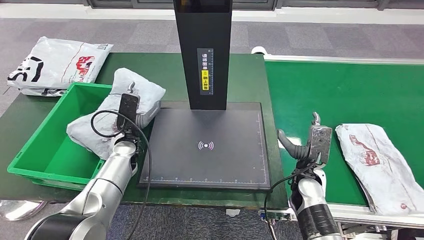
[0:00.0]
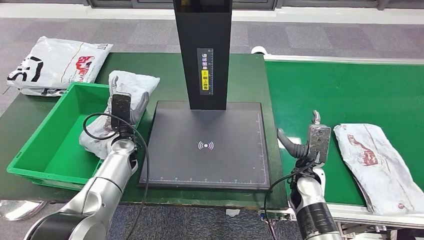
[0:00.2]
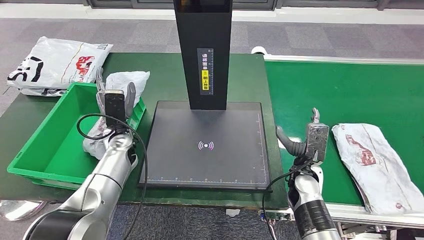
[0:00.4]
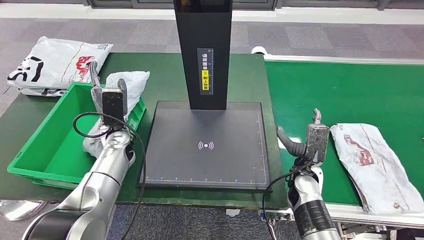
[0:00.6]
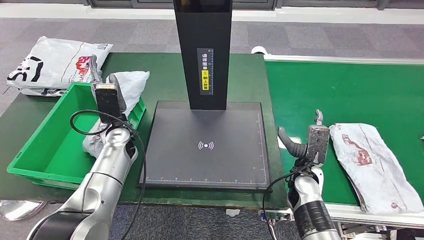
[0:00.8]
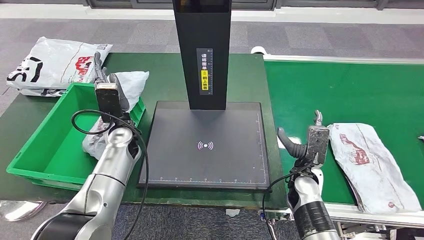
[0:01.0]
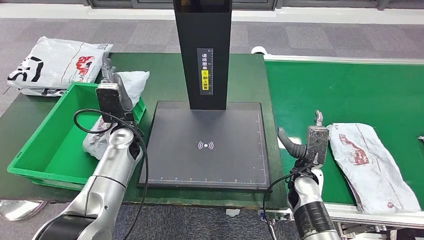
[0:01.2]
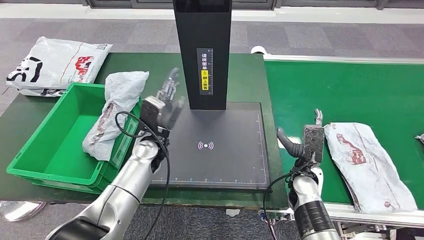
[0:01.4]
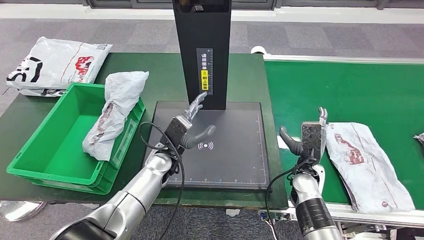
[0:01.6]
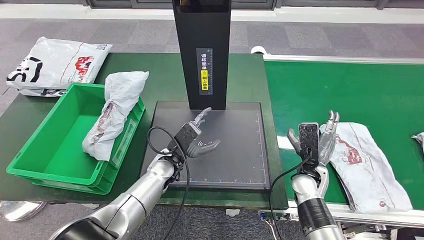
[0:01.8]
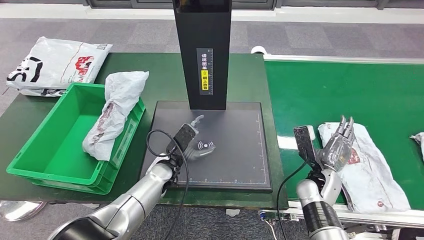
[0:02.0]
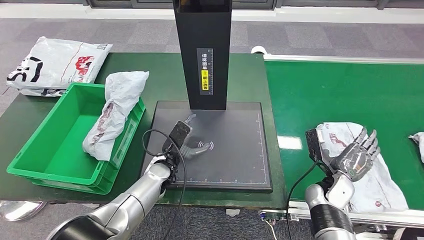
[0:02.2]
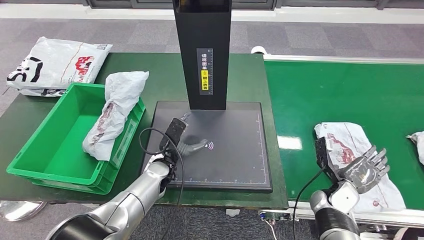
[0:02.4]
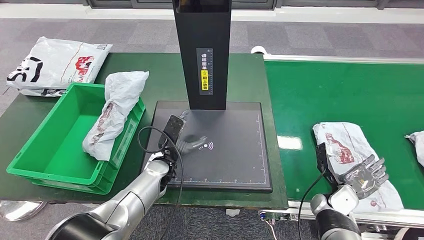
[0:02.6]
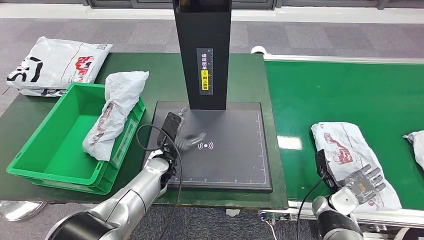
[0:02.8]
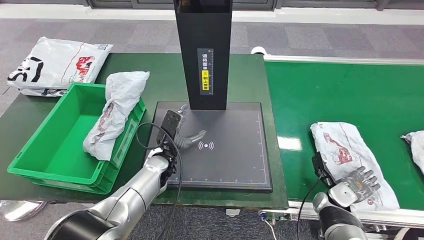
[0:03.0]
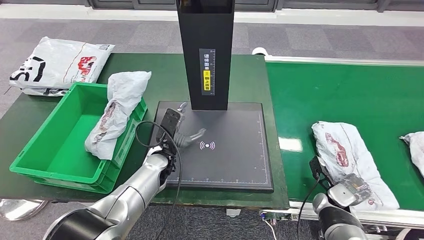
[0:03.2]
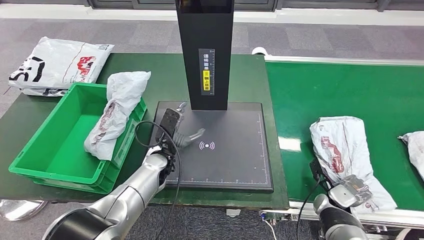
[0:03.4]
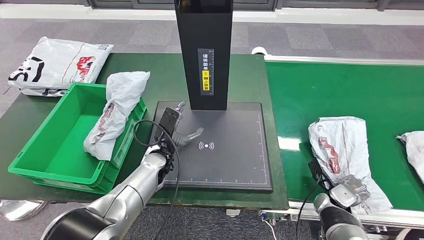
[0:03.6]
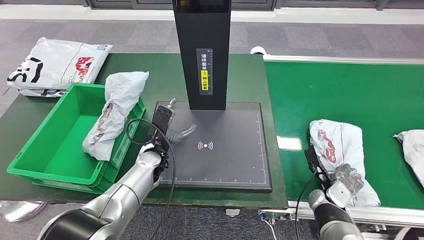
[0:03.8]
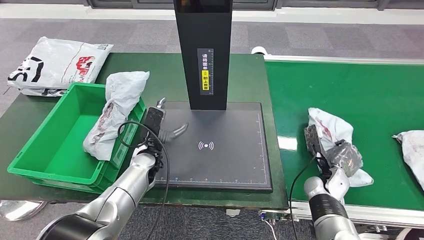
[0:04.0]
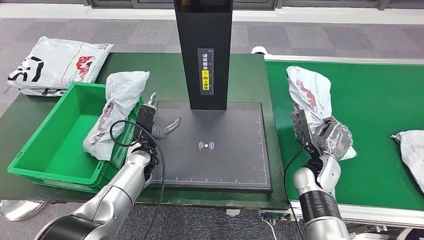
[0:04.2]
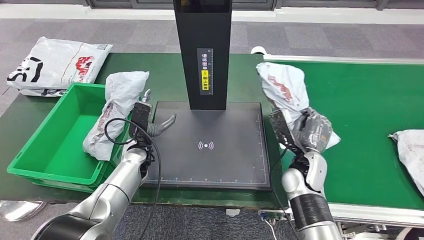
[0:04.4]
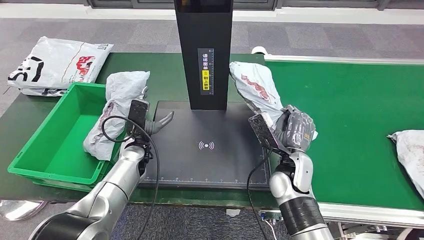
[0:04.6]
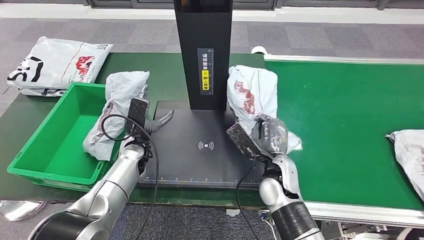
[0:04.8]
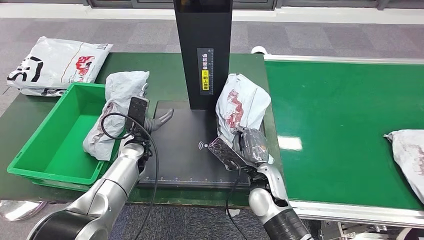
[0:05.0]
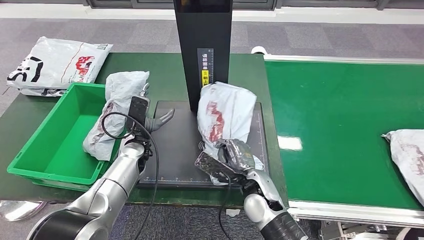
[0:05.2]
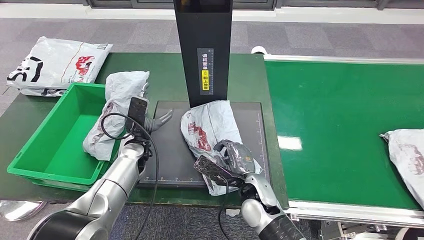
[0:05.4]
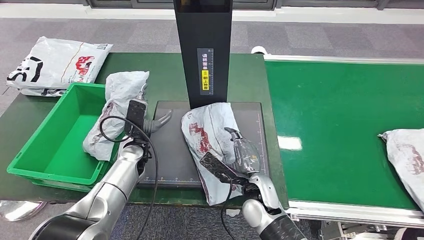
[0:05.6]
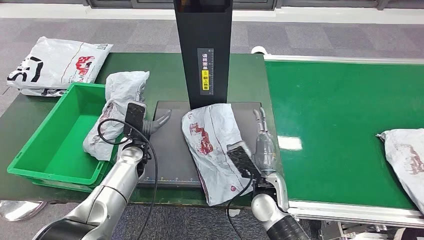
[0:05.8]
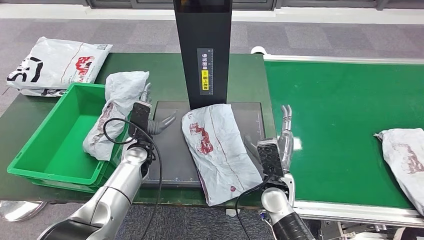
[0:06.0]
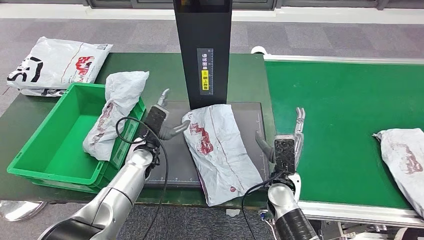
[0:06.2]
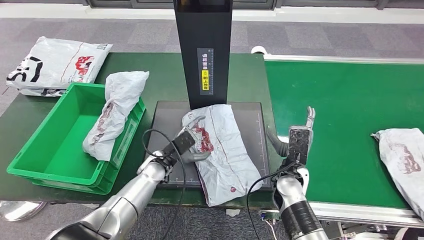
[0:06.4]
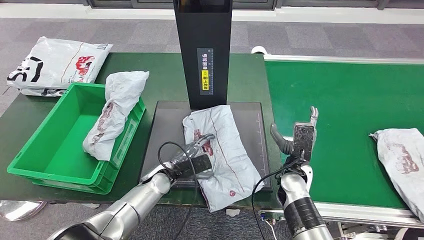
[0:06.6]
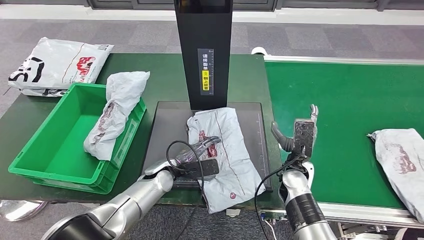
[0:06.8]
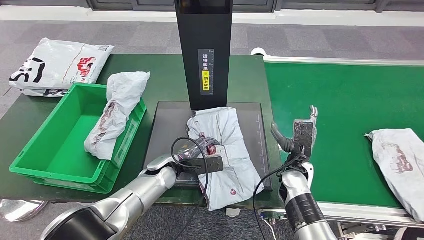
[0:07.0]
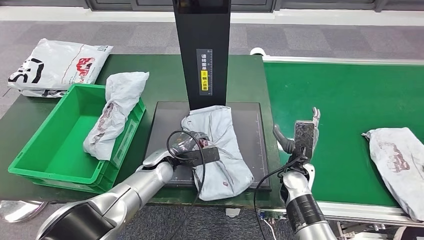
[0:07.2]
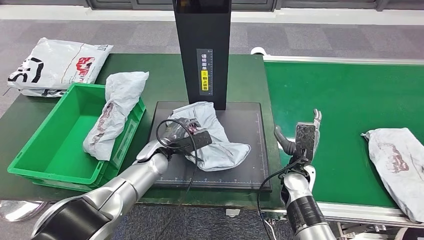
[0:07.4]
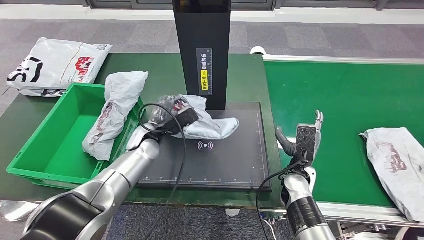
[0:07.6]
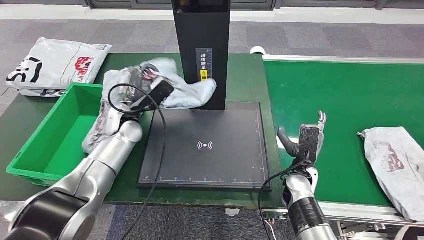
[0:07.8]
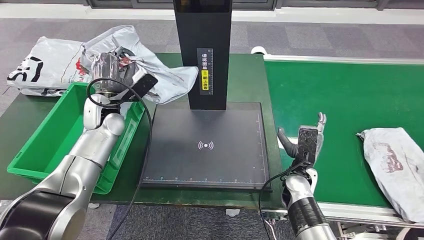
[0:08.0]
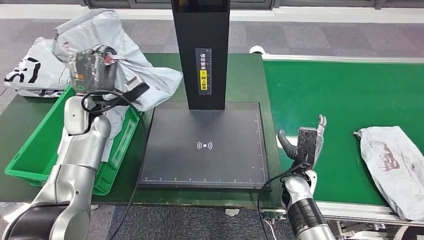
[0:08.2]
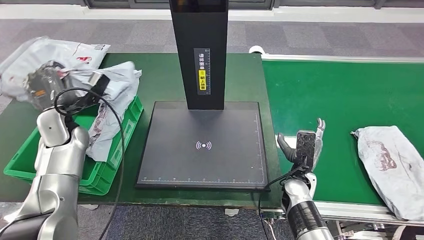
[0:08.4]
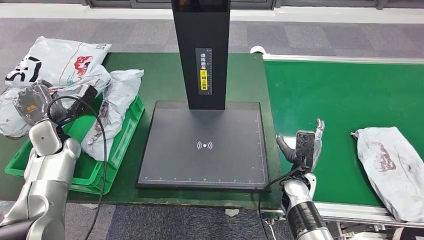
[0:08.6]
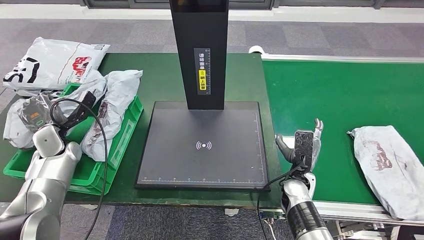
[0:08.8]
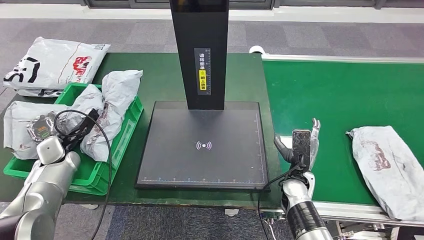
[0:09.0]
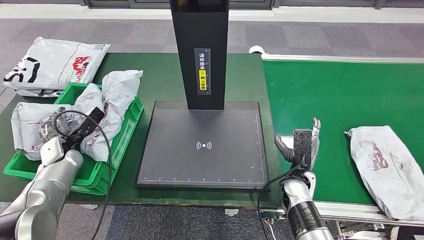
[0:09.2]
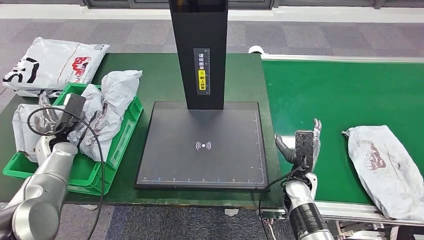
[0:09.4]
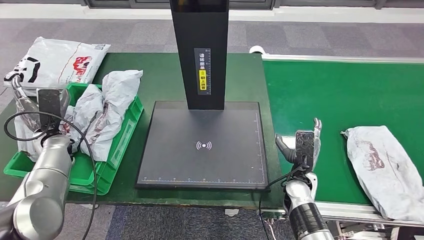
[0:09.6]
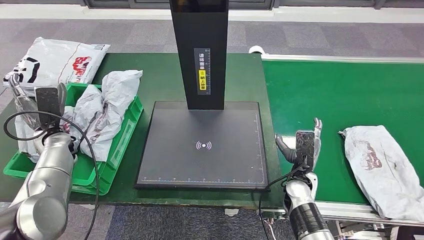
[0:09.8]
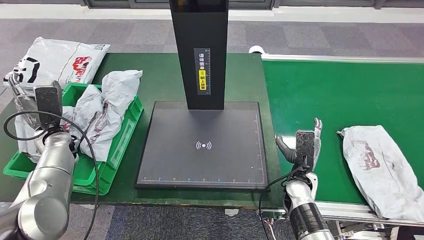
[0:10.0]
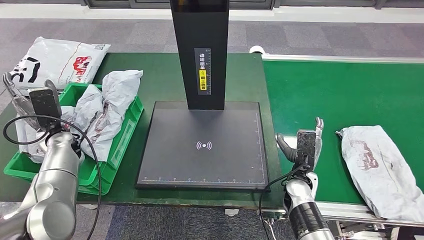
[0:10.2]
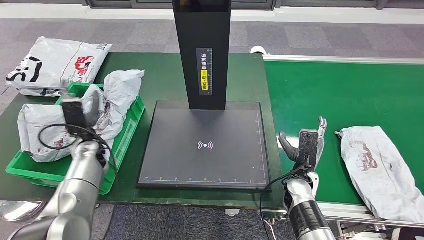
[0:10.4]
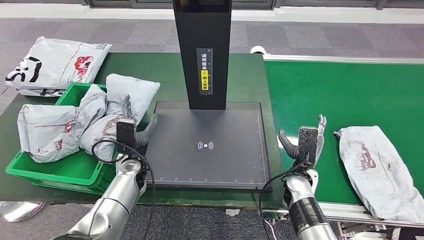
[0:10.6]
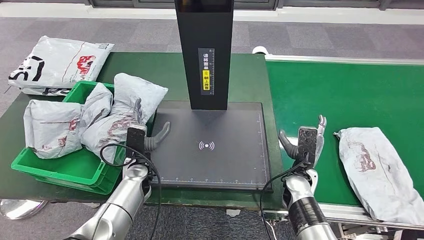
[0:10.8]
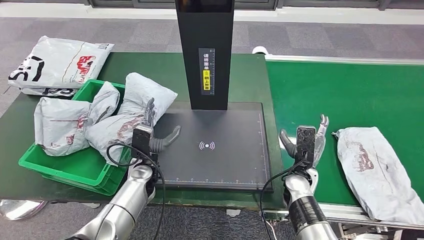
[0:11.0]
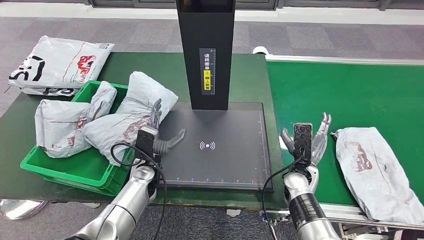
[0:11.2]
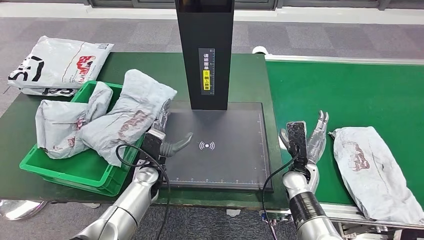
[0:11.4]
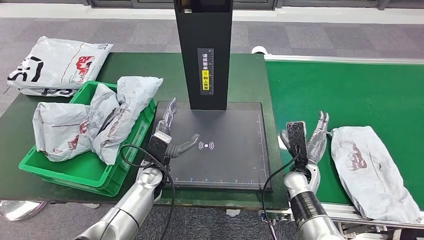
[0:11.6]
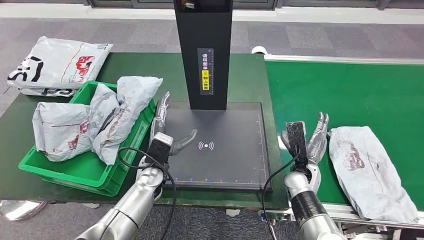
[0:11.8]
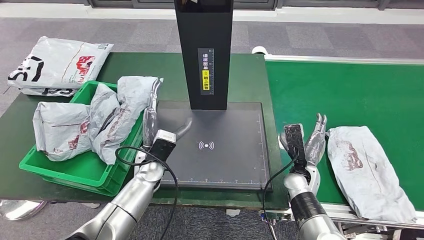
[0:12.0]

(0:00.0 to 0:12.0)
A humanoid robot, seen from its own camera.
Step, 0:00.0 - 0:04.2: Pick up the parcel from the conveyor belt.
Step, 0:04.4 - 0:06.4: Place the parcel onto the inbound machine.
Step, 0:06.6 - 0:08.2: Pick up the parcel from the inbound machine.
Step, 0:08.4 - 0:10.2: Place the parcel into the delivery box.
0:01.6 - 0:03.0: The right hand travels to the right and downward by about 15 cm.

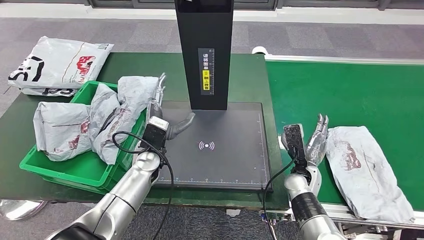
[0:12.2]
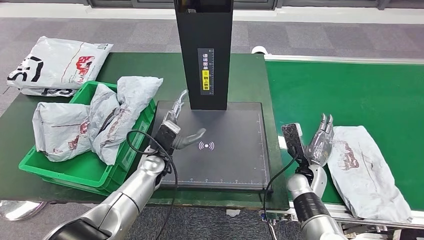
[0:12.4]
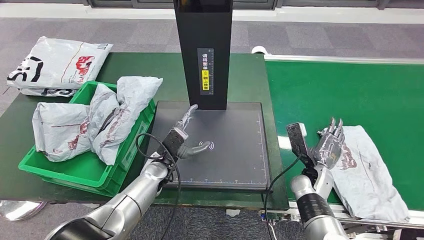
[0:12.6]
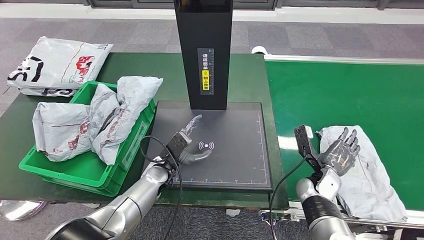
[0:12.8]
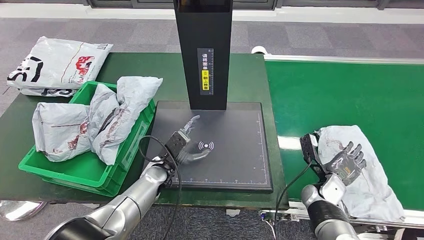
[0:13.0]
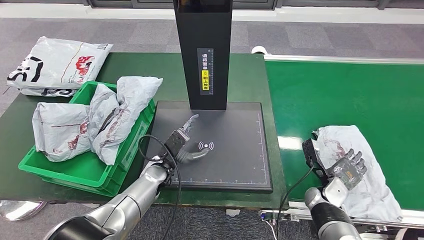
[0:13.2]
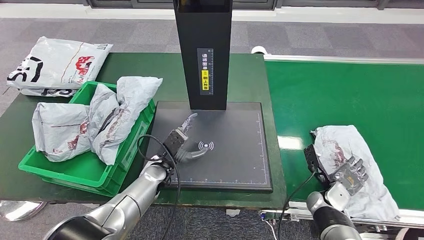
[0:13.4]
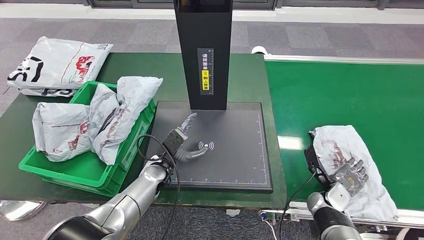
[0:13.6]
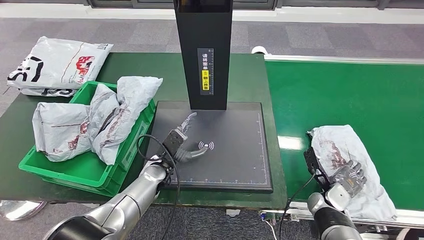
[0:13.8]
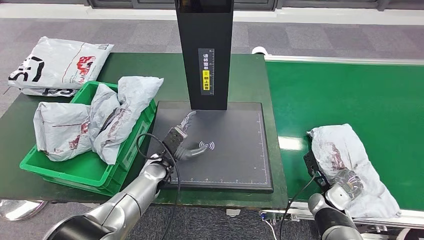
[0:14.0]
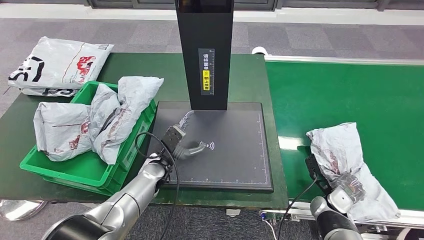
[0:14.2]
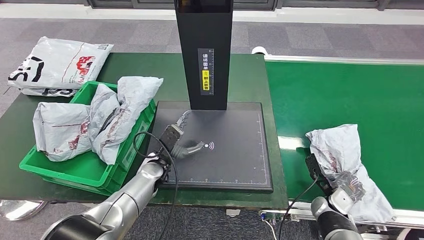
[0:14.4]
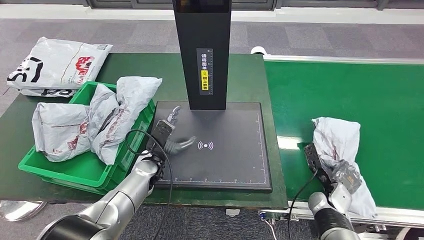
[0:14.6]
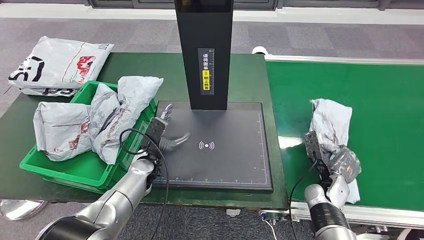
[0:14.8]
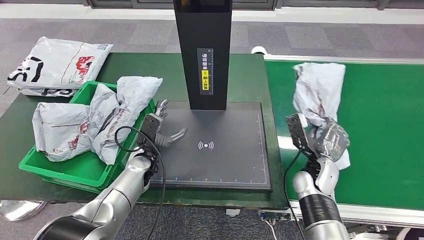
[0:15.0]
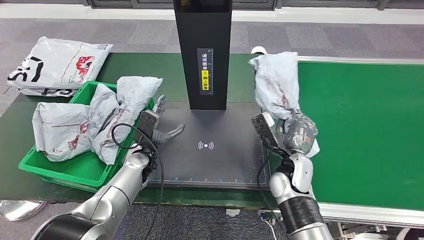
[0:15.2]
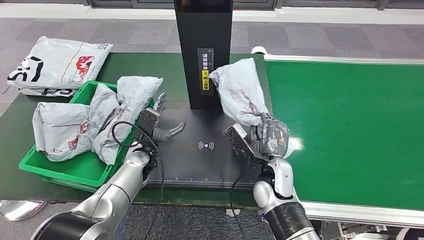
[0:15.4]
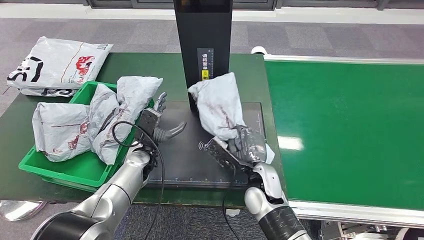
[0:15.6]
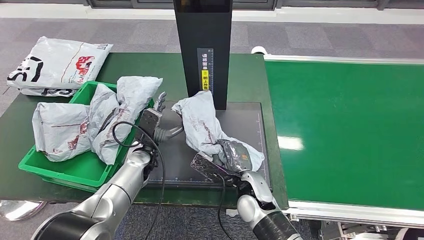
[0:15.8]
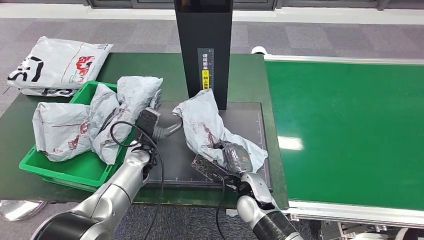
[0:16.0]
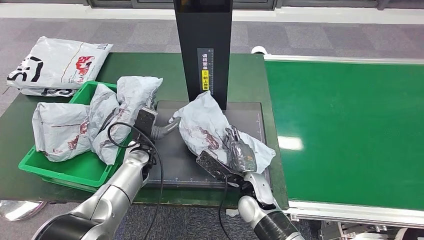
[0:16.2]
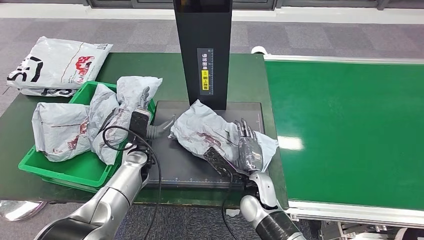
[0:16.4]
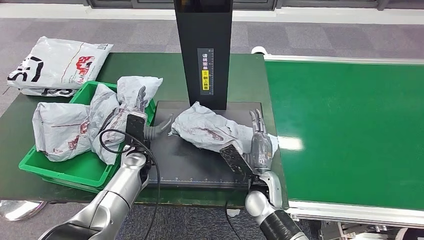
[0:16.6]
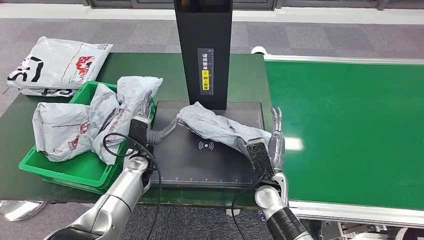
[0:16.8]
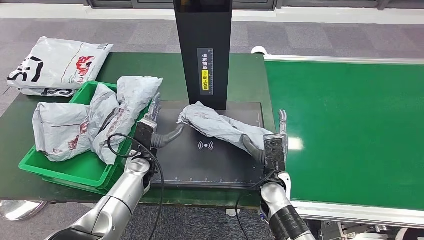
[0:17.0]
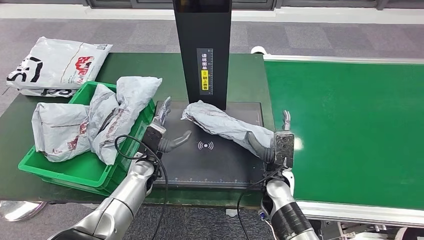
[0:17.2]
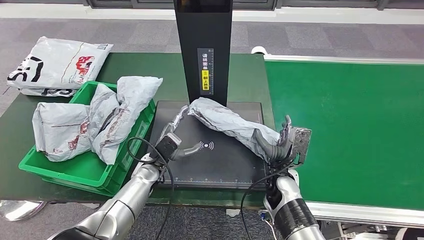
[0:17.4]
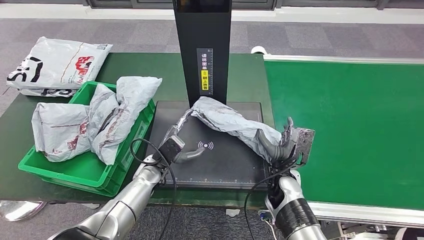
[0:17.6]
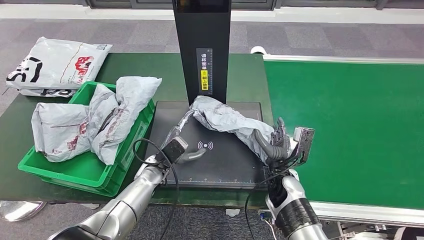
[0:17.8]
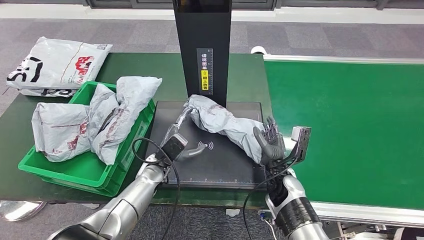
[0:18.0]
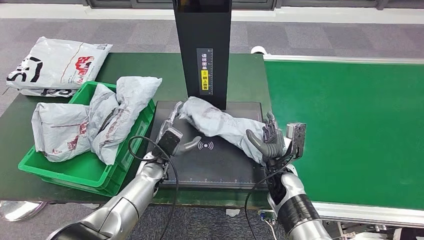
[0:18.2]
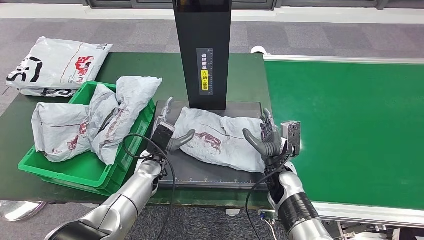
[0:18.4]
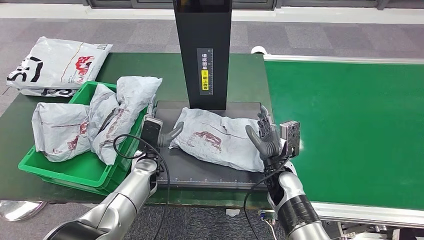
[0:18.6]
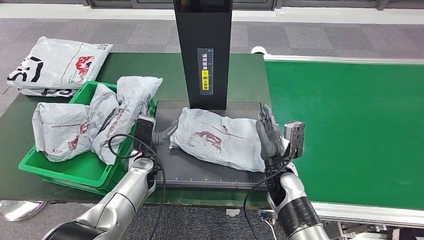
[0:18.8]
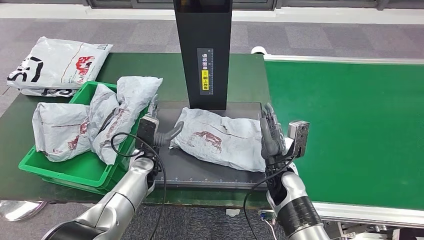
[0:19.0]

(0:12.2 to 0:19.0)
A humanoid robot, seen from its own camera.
Step, 0:12.2 - 0:14.8: Pick up the parcel from the conveyor belt.
Step, 0:15.0 - 0:17.8: Place the parcel onto the inbound machine.
0:12.2 - 0:13.6: The right hand moves to the right, approximately 10 cm; the left hand goes roughly 5 cm downward.
0:13.6 - 0:15.0: The right hand goes some 10 cm upward and to the left.
0:16.2 - 0:17.6: The left hand shifts by roughly 5 cm. Meanwhile the right hand shifts approximately 10 cm to the right.
